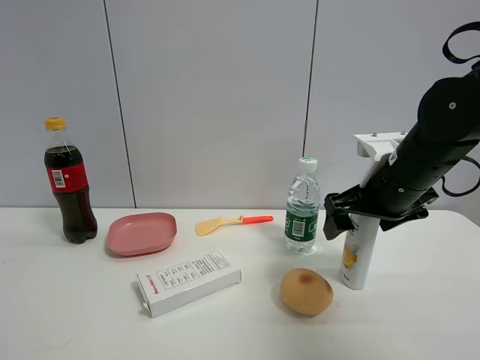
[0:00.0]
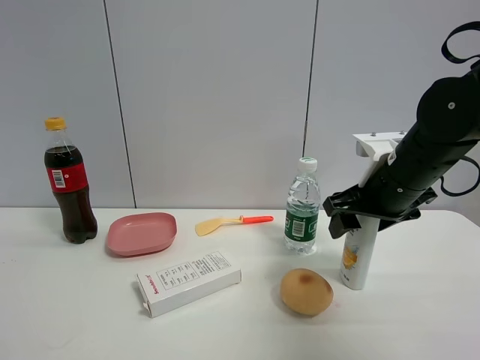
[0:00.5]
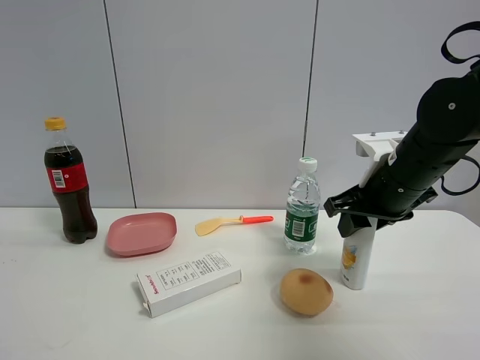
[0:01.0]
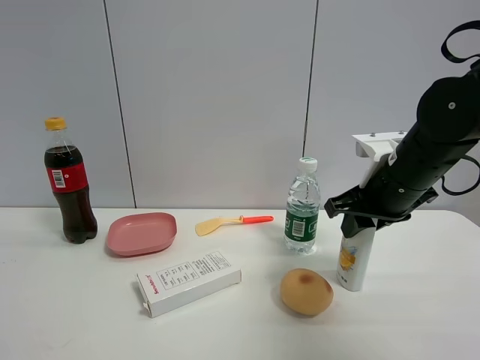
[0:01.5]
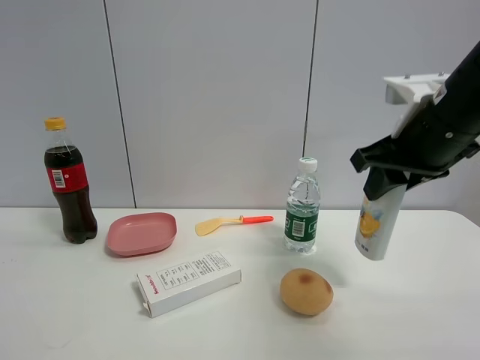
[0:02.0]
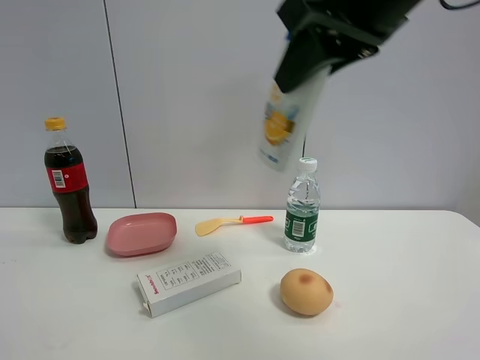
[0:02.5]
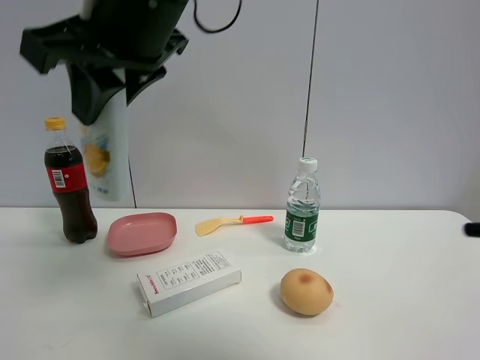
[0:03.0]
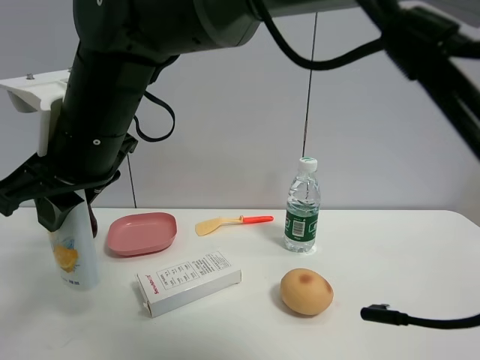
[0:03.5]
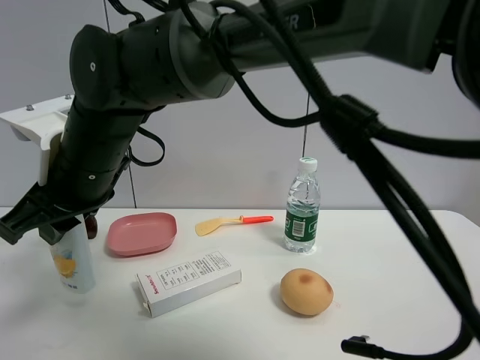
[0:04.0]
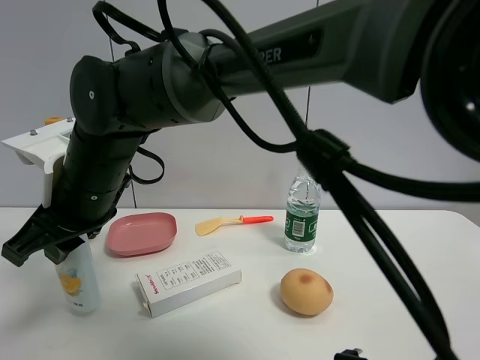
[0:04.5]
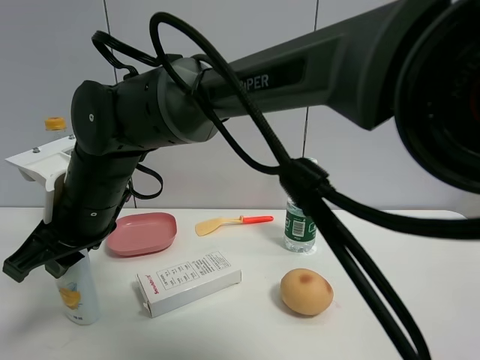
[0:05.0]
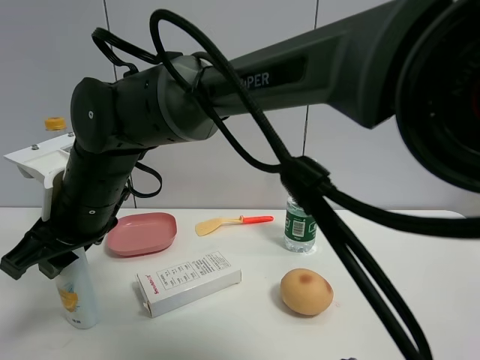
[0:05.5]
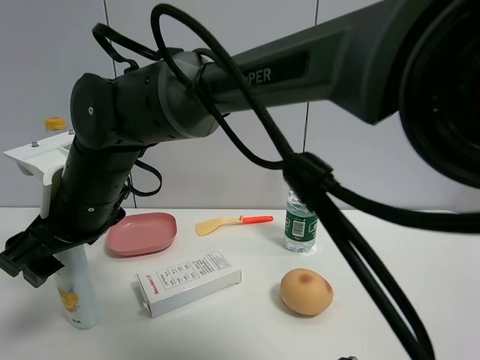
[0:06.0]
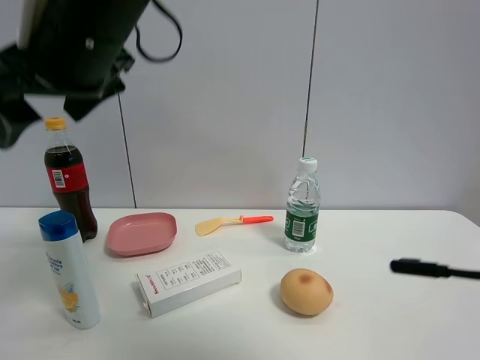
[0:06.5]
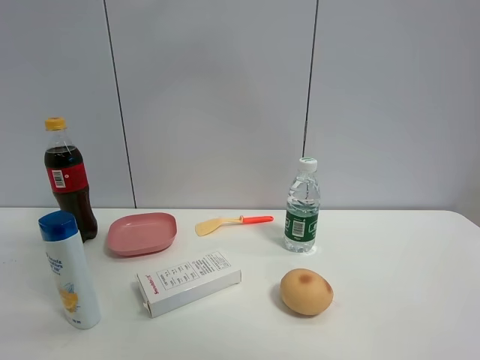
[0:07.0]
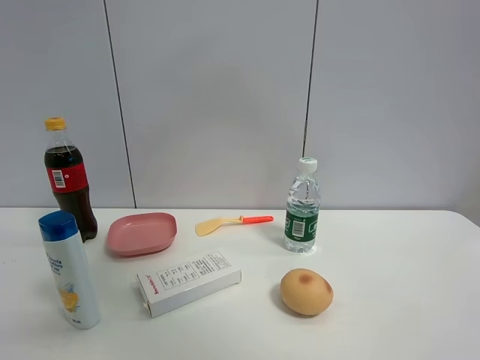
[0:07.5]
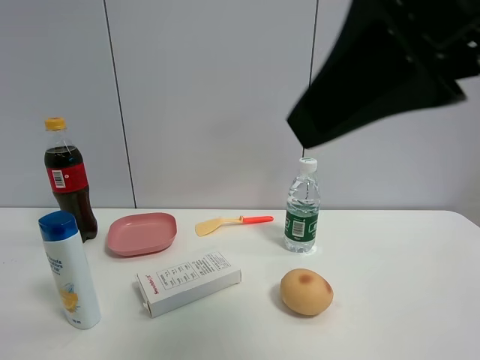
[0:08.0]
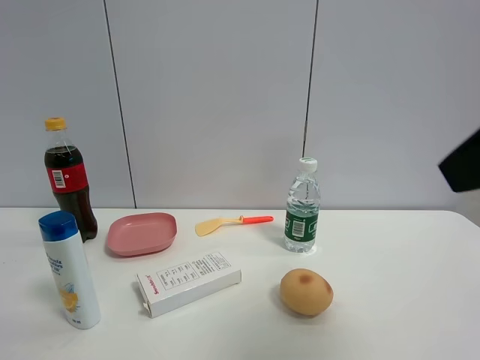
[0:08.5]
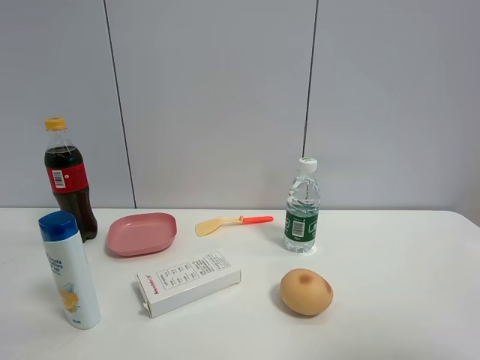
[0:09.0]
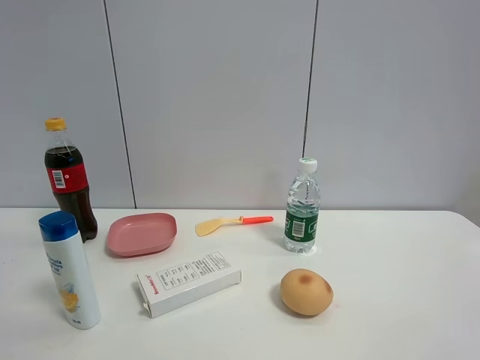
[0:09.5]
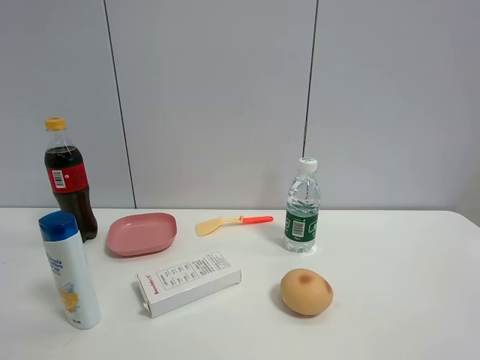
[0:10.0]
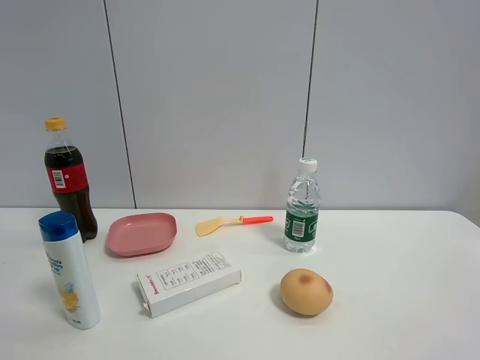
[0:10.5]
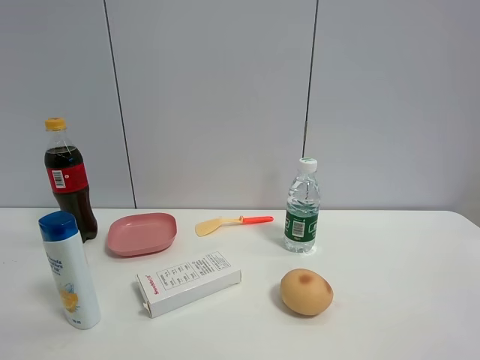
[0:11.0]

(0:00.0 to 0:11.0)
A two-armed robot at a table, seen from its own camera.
Task of the whole recording: the gripper move the object.
Step, 0:01.5 - 0:06.0: Place the shampoo on the table with the right gripper.
0:00.0 - 0:02.0: The right gripper goes some 10 cm upward, and closes.
0:02.0 - 0:03.5: The right gripper is displaced to the left by about 35 cm.
0:03.5 - 0:05.5: The right gripper is displaced downward by roughly 5 cm.
0:05.5 - 0:07.5: The right gripper heads upward, to the right and backward, covering some 35 cm, and opens.
0:07.5 - 0:09.0: The right gripper is displaced to the right, backward and downward by some 30 cm.
0:09.0 - 0:11.0: The right gripper travels backward and downward by approximately 10 cm.

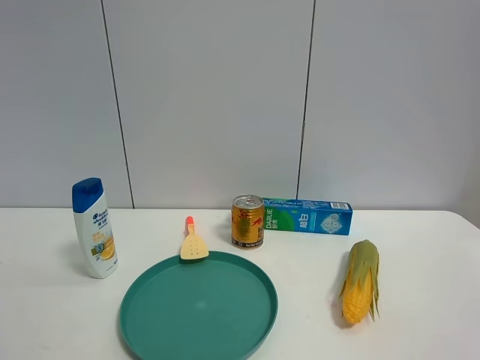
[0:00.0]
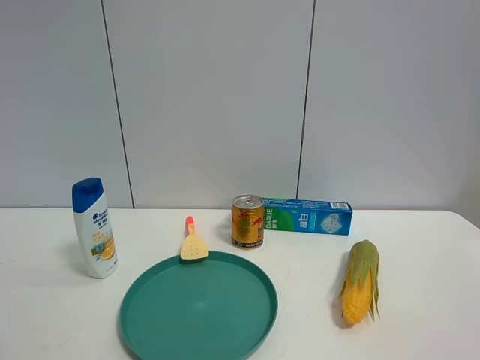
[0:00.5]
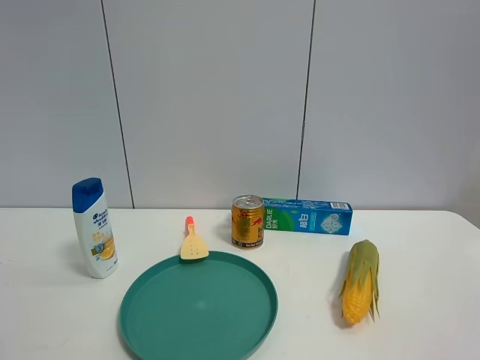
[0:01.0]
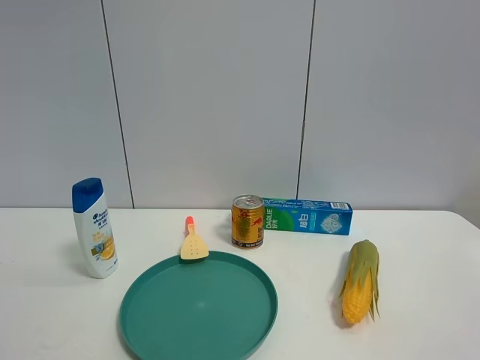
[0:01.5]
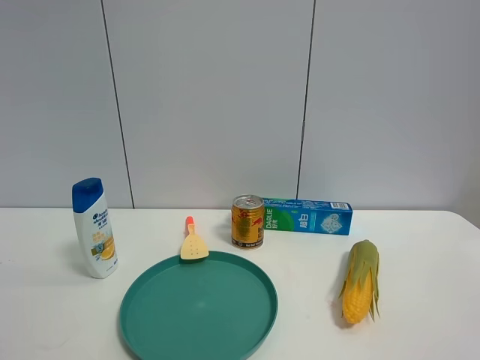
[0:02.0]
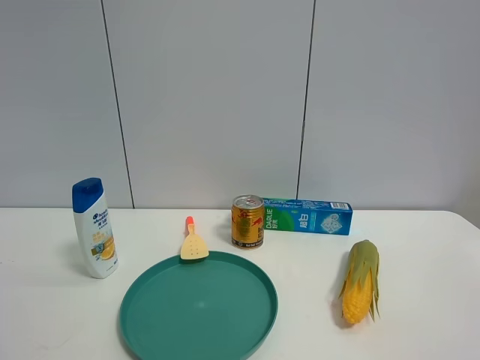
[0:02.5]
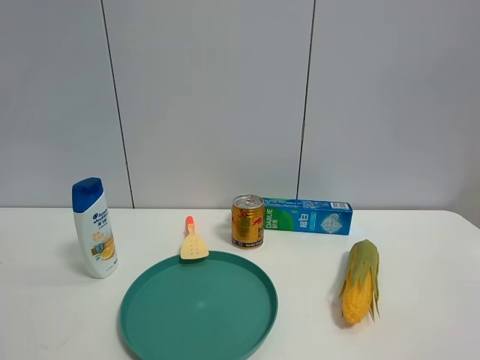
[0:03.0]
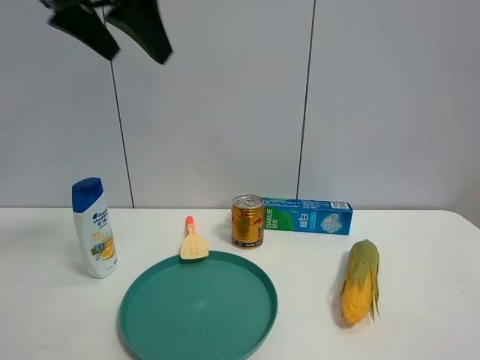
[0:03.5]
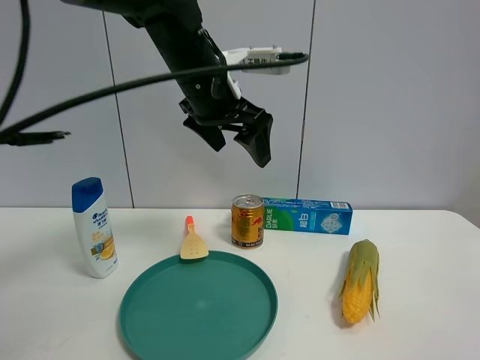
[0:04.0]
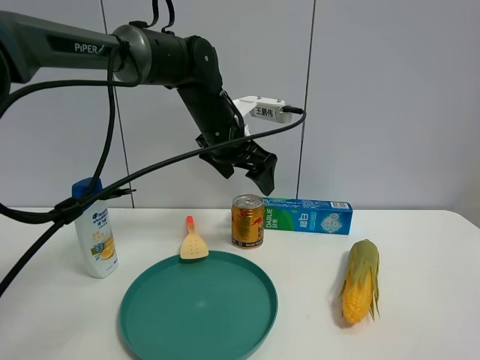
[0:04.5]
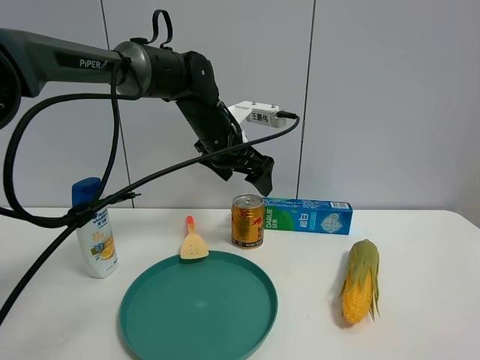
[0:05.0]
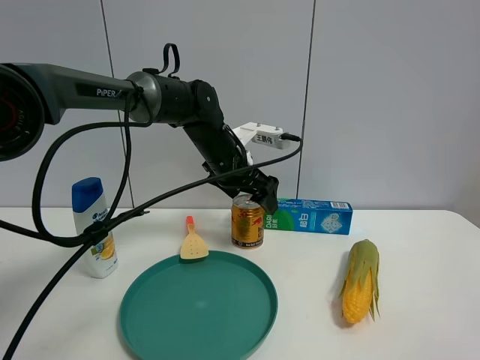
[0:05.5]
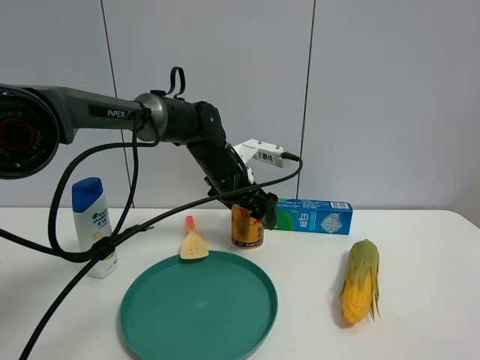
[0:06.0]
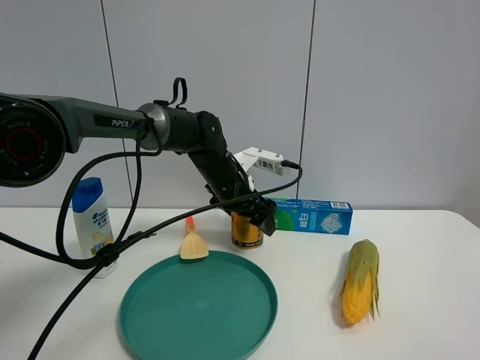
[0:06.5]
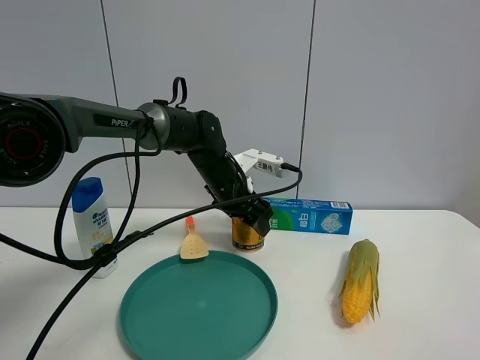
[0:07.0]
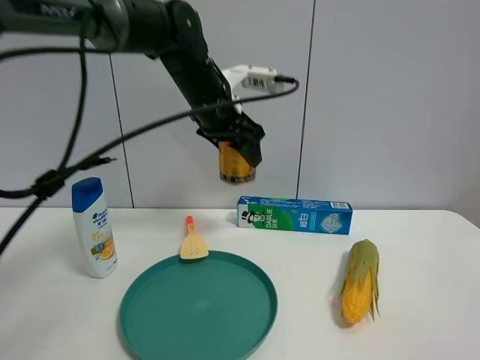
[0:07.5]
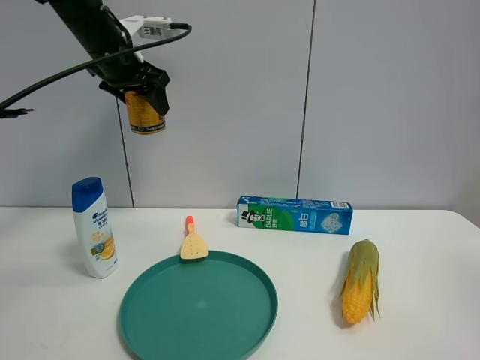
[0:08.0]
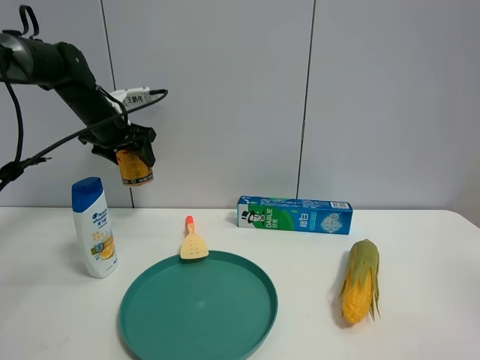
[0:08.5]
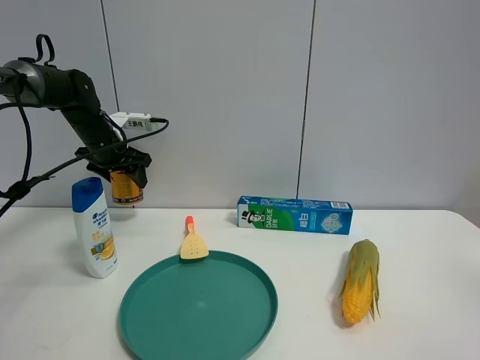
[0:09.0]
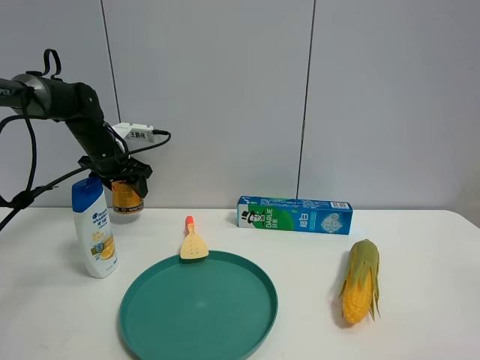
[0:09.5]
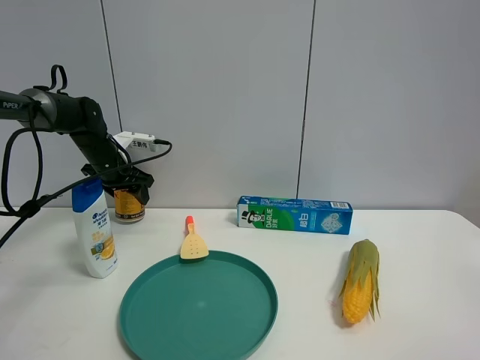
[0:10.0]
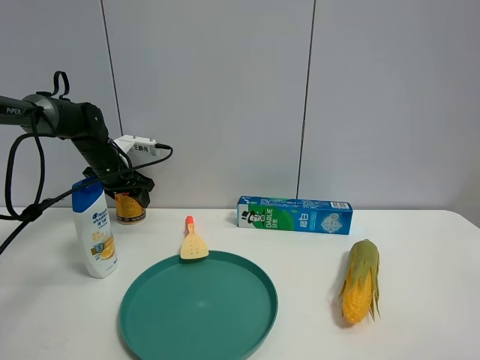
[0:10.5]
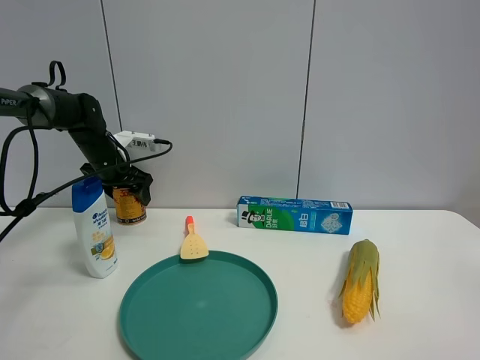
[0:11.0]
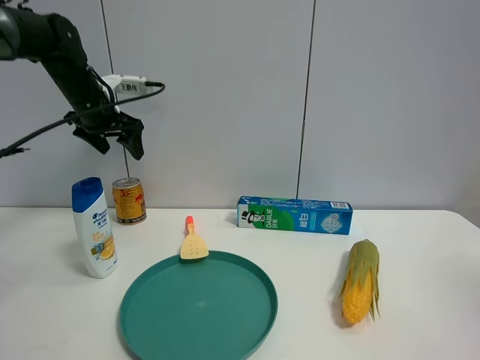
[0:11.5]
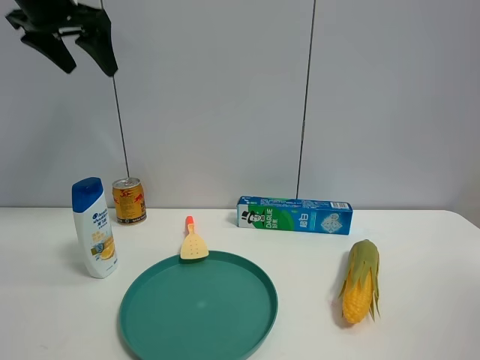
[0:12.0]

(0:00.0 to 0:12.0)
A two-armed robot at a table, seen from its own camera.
Task of the whole recording: the gripper move the object.
Step, 0:00.0 - 0:06.5: Grasp the red bull with the left gripper.
Step, 0:07.0 - 0:11.5: Place the red bull on the table with the left gripper.
0:02.0 - 0:04.0: The left gripper moves forward and to the right, approximately 50 cm, and opens up.
0:04.0 - 0:06.0: The left gripper heads downward and forward, covering approximately 15 cm.
0:06.0 - 0:08.0: The left gripper travels upward and to the left by some 25 cm, and closes its fingers.
0:08.0 - 0:10.0: The left gripper heads downward, covering approximately 20 cm.
0:10.0 - 0:12.0: The left gripper is displaced upward and backward by some 30 cm, and opens up.
